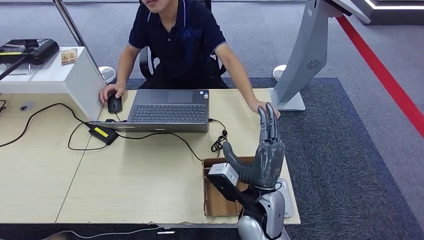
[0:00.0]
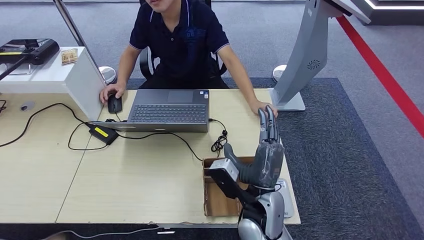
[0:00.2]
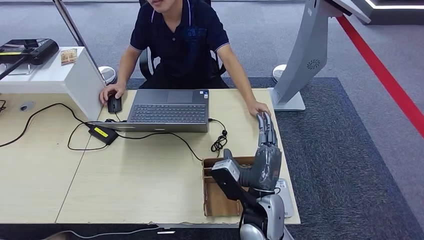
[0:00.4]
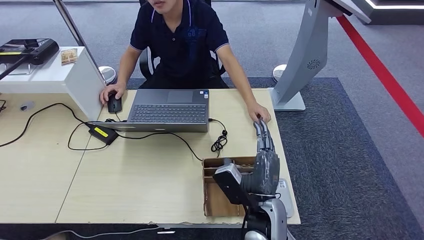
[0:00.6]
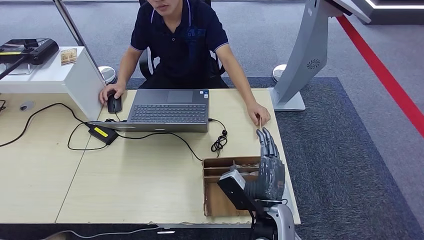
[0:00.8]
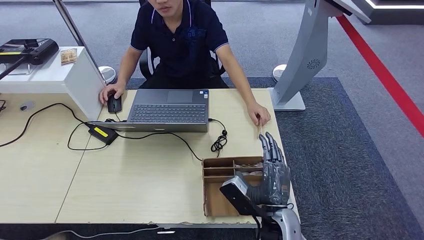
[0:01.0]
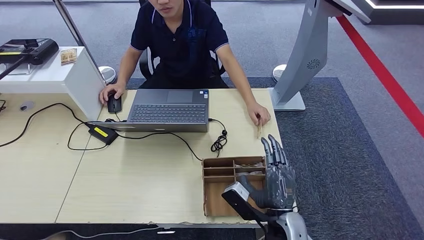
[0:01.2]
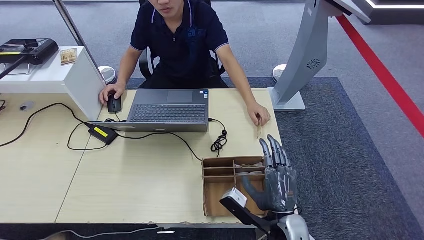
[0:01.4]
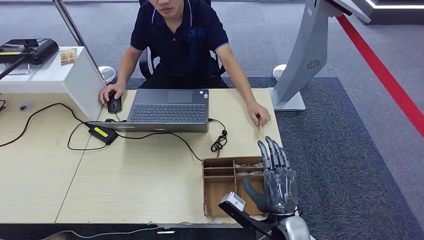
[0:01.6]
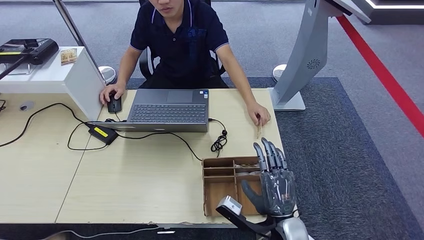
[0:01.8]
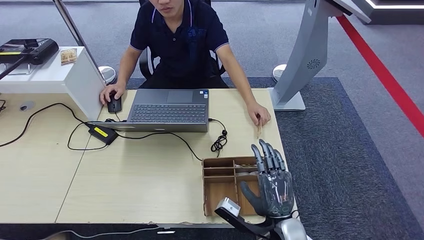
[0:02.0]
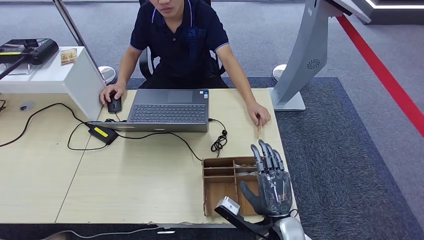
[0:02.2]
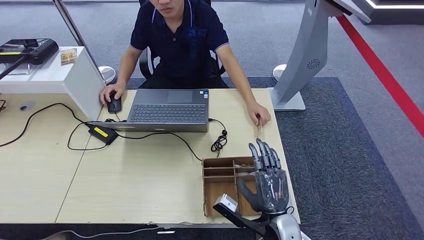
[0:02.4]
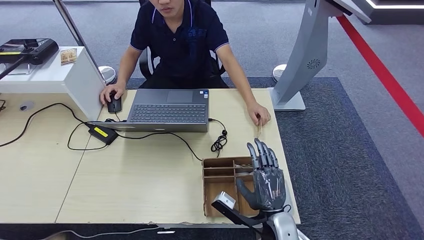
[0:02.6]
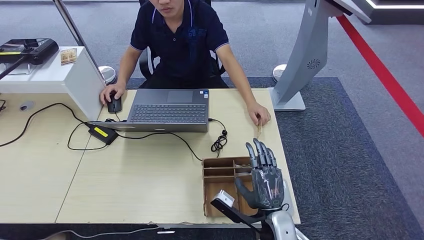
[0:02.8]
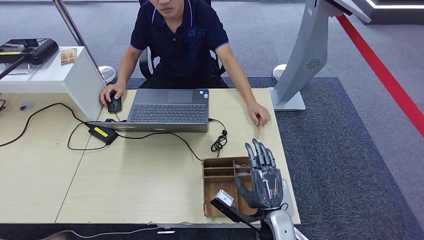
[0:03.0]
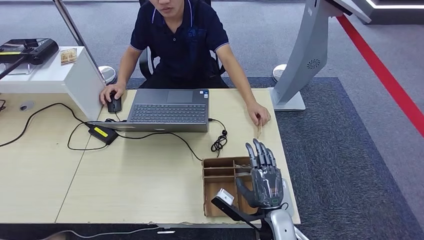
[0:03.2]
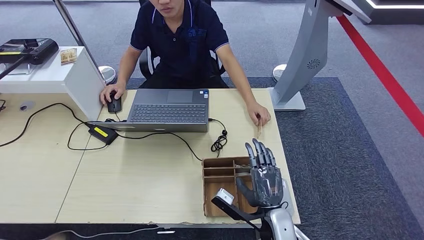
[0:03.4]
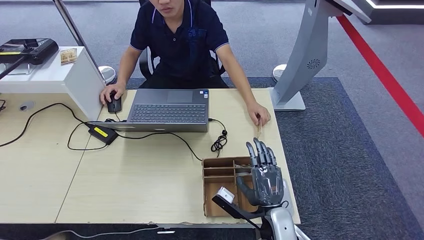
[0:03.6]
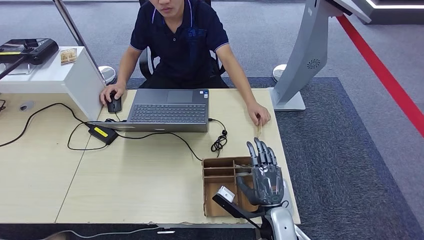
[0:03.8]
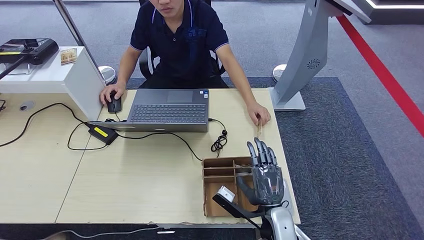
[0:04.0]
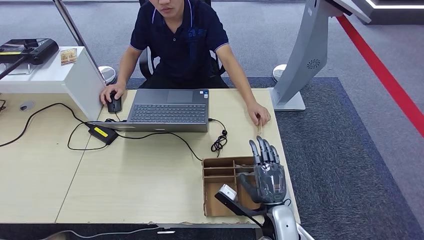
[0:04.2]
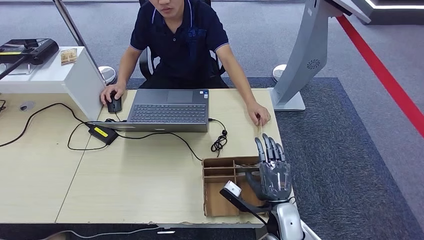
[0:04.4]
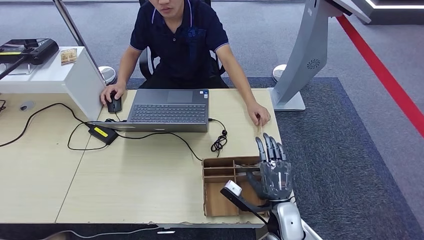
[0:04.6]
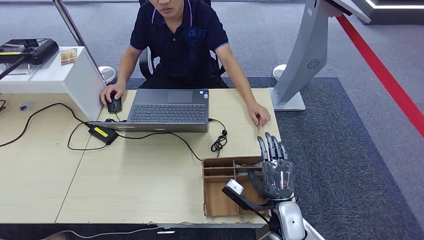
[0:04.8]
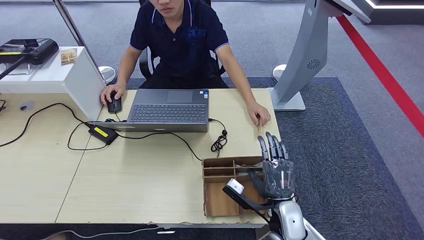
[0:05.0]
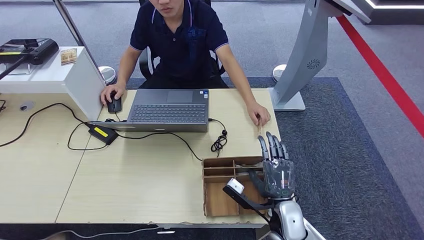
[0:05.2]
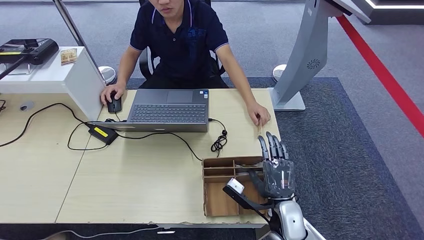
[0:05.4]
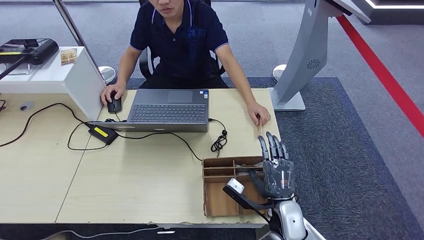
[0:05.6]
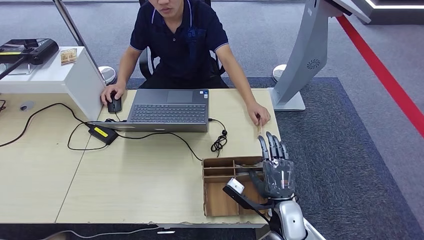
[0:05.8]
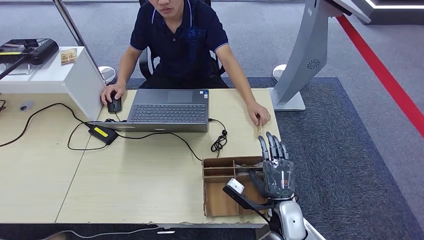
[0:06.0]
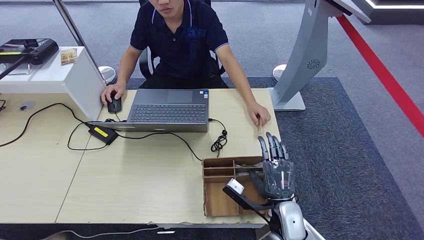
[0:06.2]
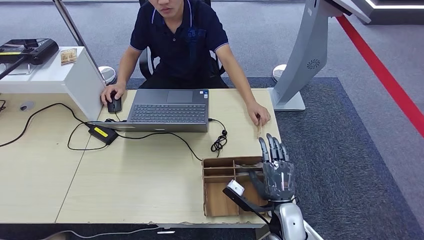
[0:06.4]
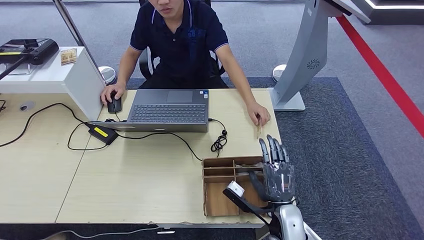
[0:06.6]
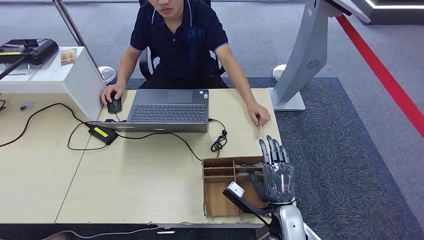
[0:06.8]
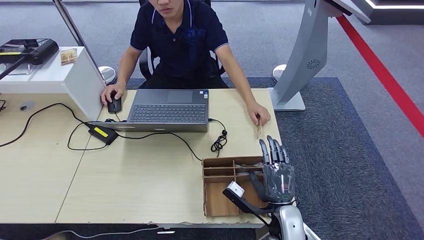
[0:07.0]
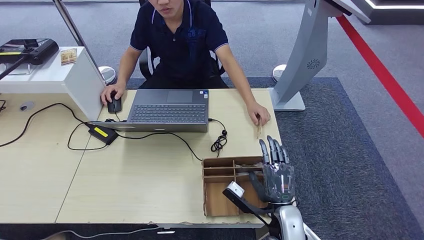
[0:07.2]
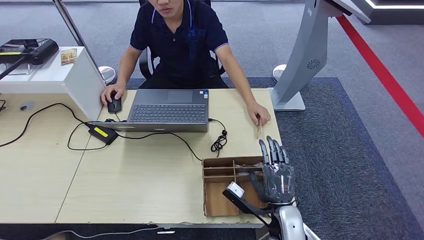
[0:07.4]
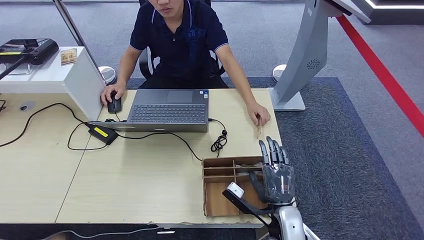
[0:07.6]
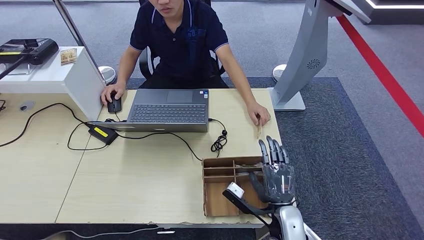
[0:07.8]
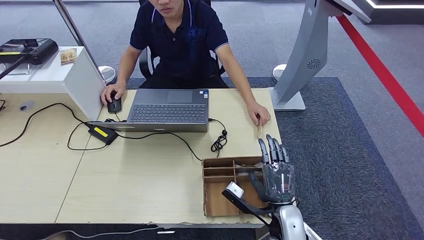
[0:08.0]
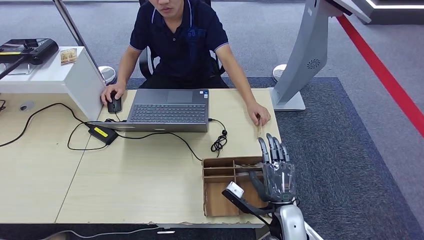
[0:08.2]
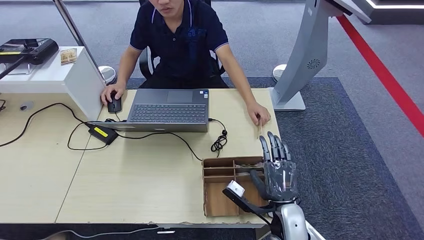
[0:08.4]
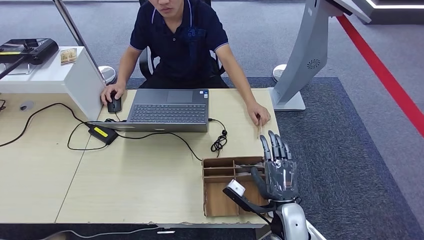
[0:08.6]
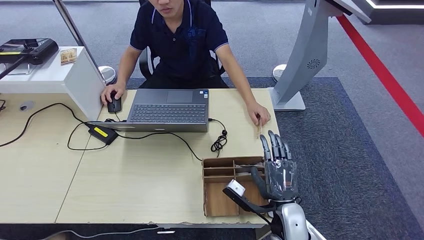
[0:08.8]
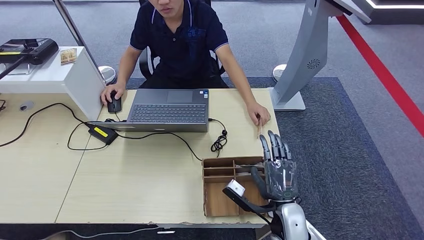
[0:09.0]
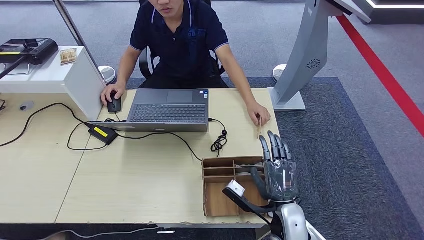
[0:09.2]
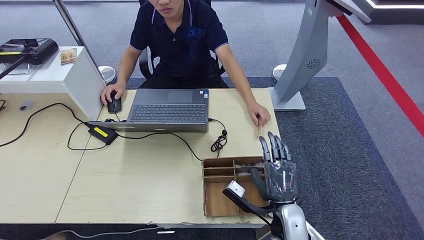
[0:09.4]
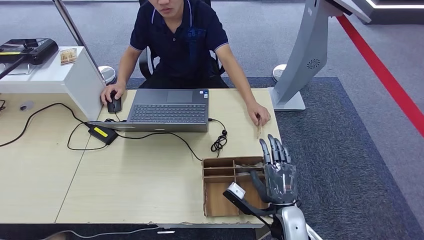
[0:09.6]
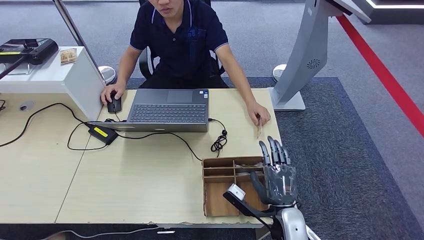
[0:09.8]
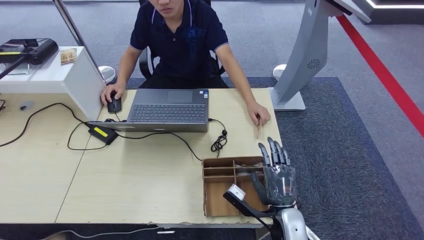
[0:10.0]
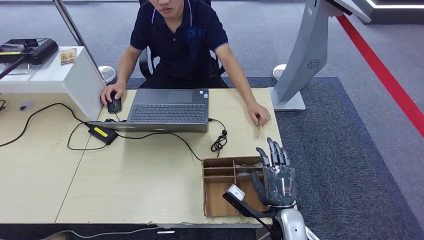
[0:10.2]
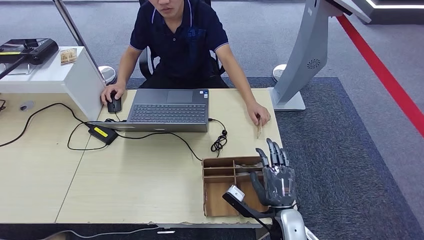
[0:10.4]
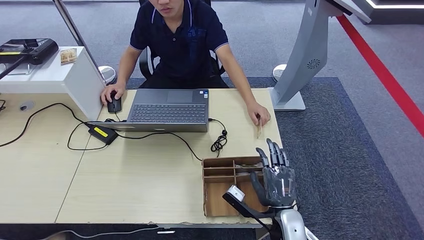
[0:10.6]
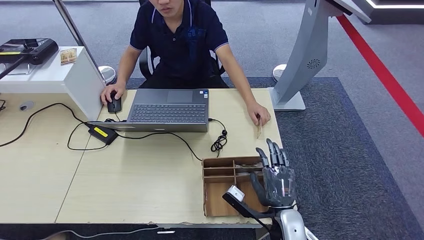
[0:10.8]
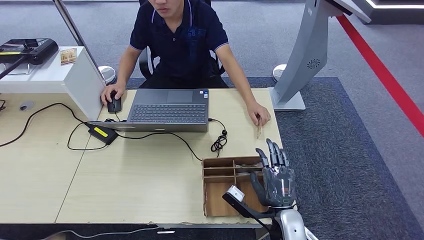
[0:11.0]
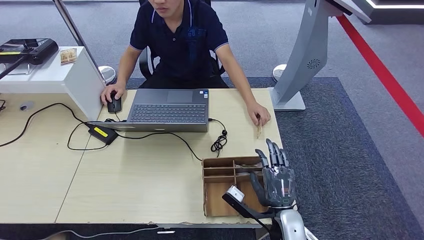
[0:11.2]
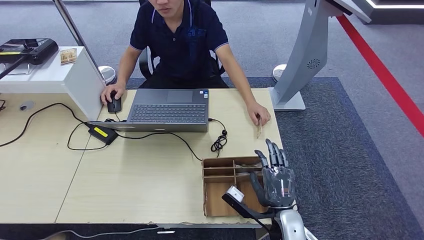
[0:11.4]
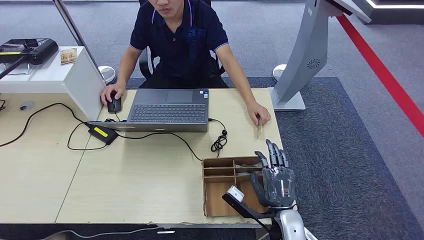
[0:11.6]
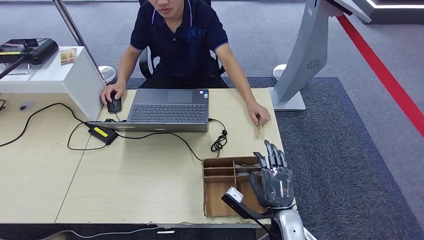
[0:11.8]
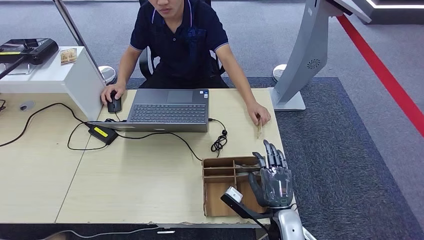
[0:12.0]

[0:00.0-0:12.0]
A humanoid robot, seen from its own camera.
0:00.0 to 0:01.6: The right hand heads to the right and downward, covering some 10 cm.
0:01.6 to 0:04.4: There are only small adjustments of the hands.
0:04.4 to 0:07.6: Both hands stay about where they are.
0:07.6 to 0:10.4: The hands stay close to where they were, moving slightly.
0:10.4 to 0:12.0: The two hands keep their place.

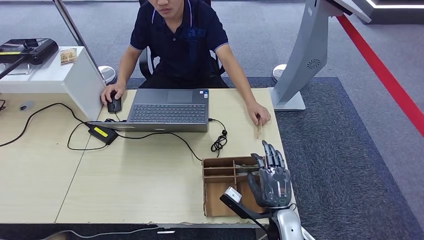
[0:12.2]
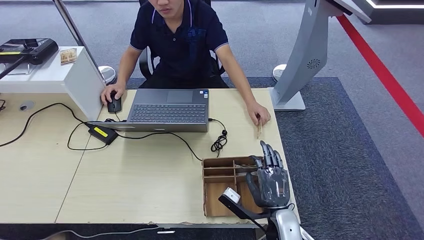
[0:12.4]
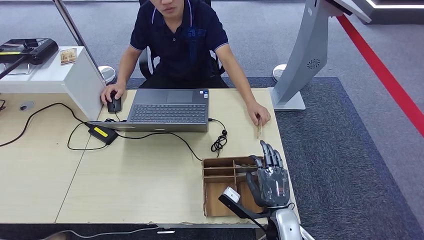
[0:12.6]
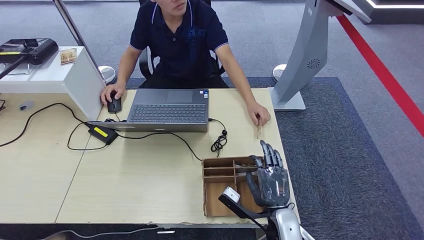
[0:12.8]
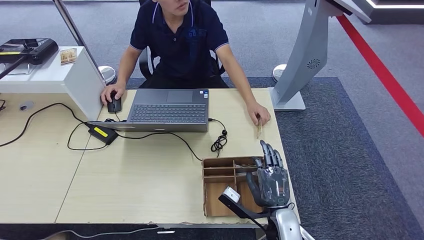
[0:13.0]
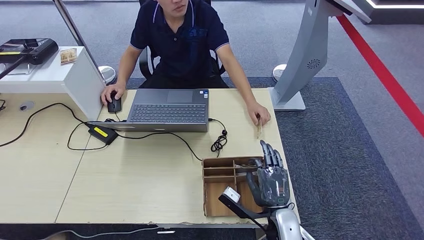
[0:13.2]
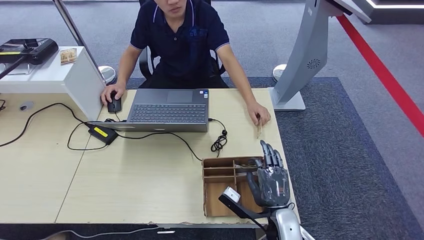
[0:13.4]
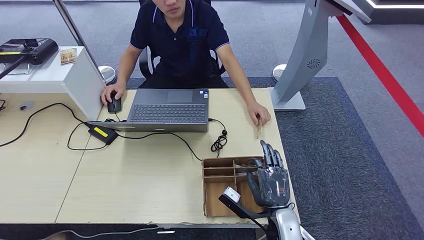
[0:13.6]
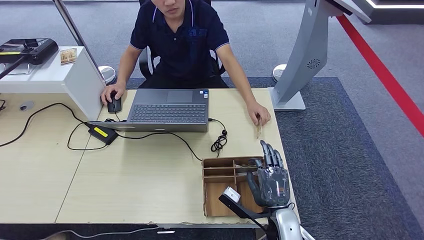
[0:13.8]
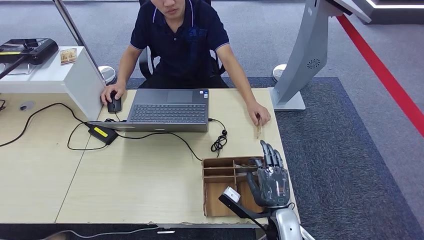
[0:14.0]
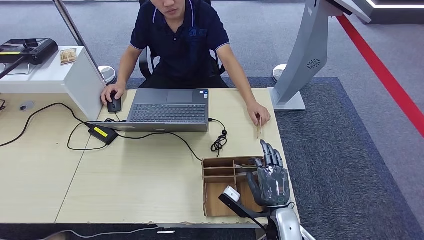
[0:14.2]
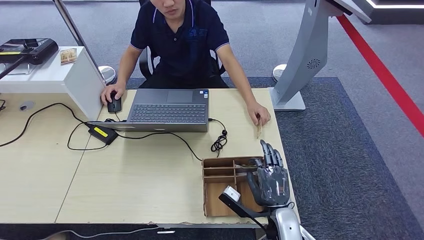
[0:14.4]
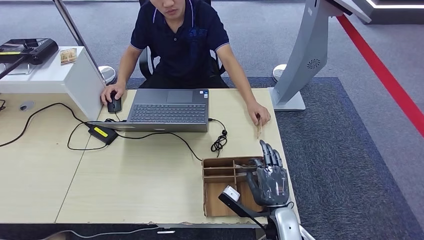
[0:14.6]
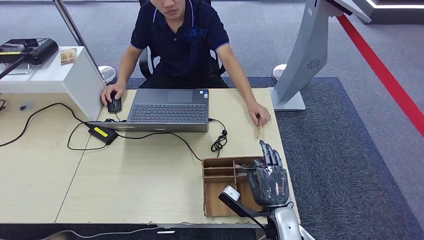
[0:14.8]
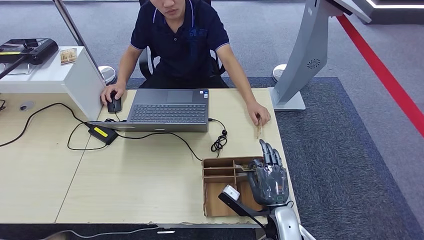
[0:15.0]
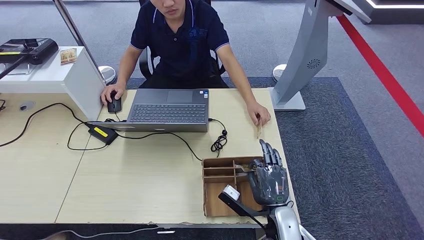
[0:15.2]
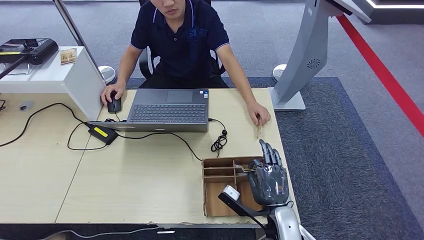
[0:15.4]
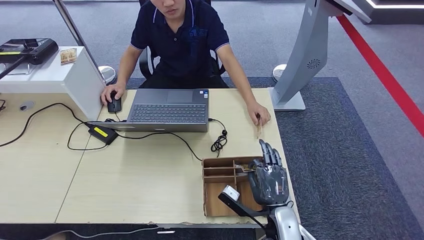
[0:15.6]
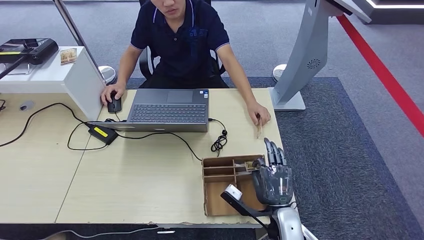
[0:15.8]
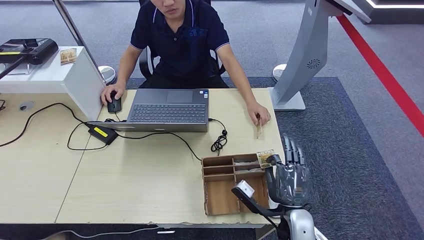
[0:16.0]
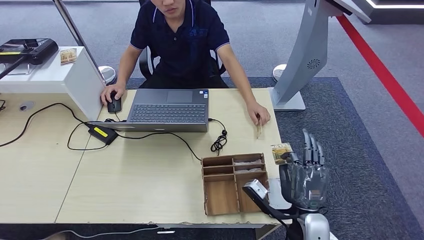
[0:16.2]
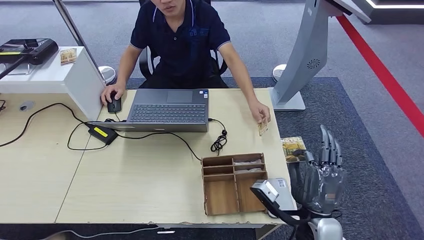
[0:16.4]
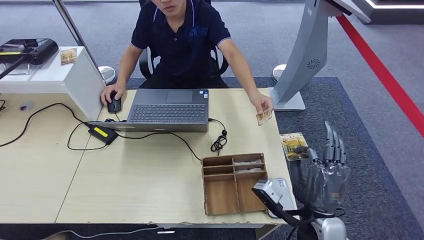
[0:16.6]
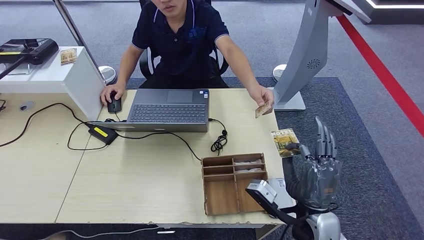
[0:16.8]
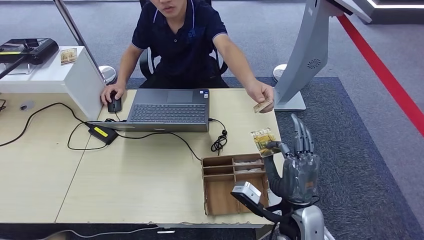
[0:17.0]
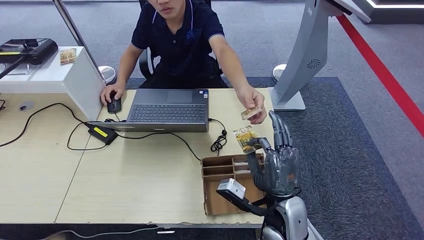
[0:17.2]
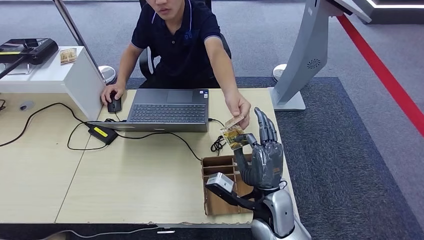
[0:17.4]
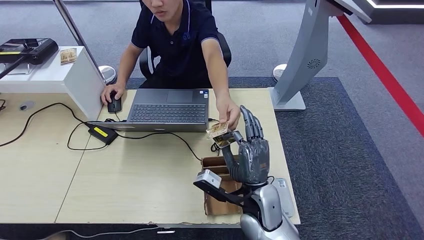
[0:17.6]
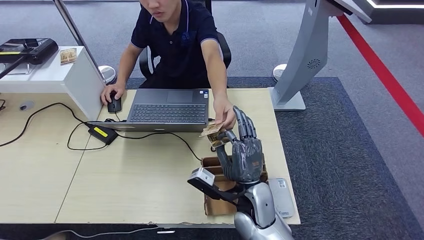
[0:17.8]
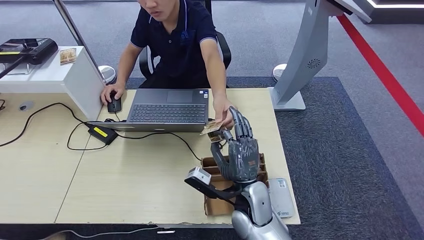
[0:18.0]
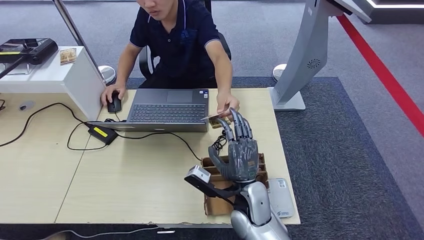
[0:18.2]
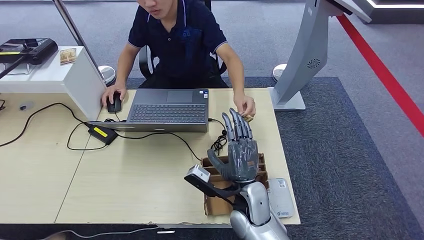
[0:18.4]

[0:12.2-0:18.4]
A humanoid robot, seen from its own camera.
Step, 0:12.2 to 0:15.8: Pick up the room key from the key card box.
Step, 0:16.0 to 0:18.4: Hand the room key to the person.
0:12.2 to 0:15.4: Both hands stay put.
0:15.4 to 0:16.8: The right hand moves upward, about 10 cm.
0:16.8 to 0:18.4: The right hand heads to the left and forward, covering some 15 cm.
